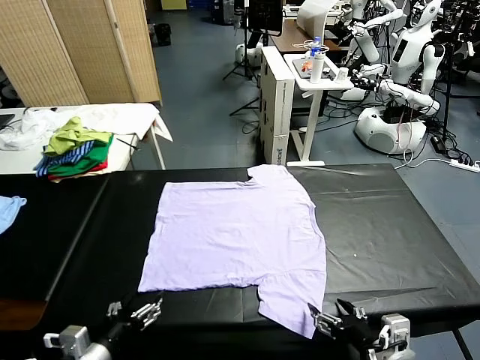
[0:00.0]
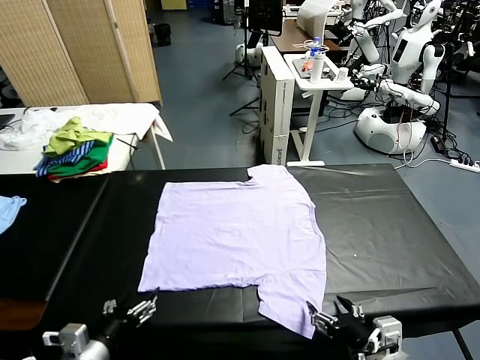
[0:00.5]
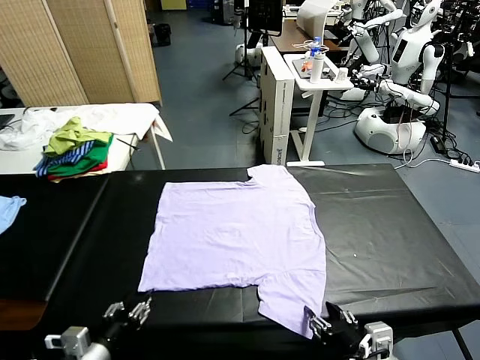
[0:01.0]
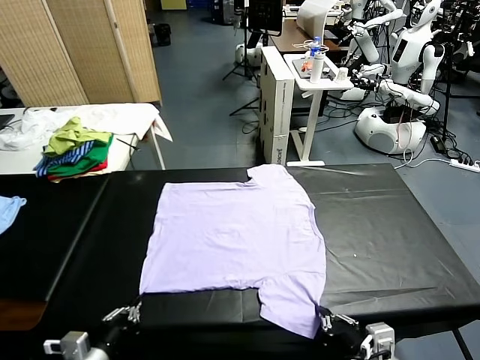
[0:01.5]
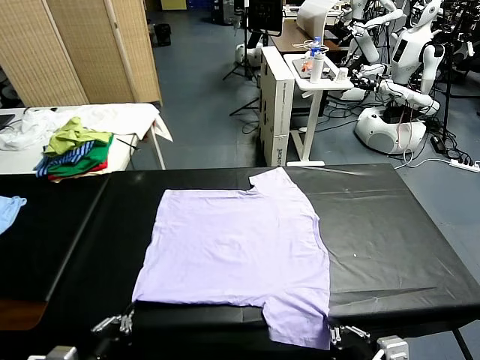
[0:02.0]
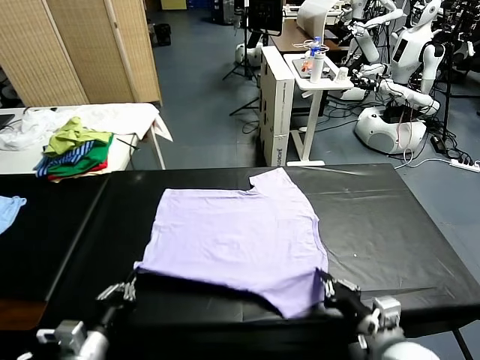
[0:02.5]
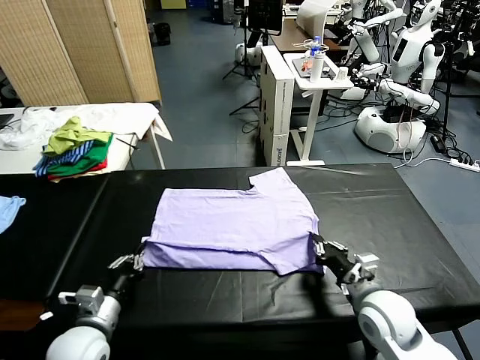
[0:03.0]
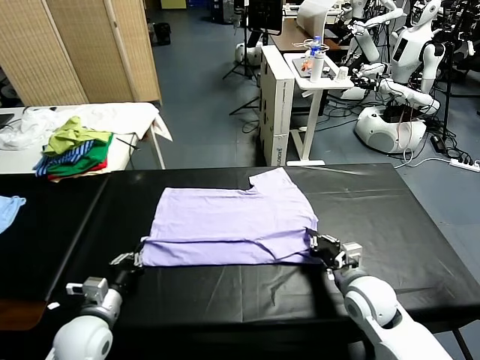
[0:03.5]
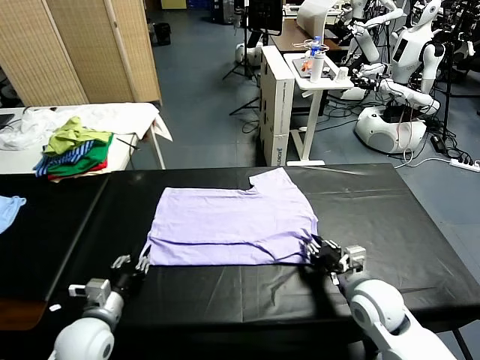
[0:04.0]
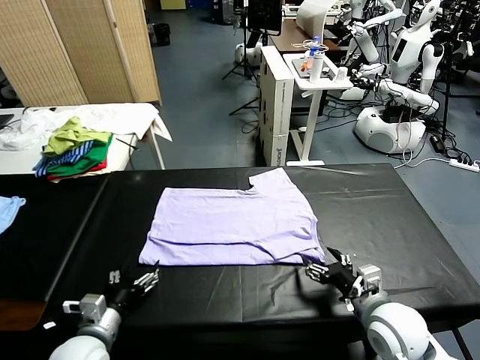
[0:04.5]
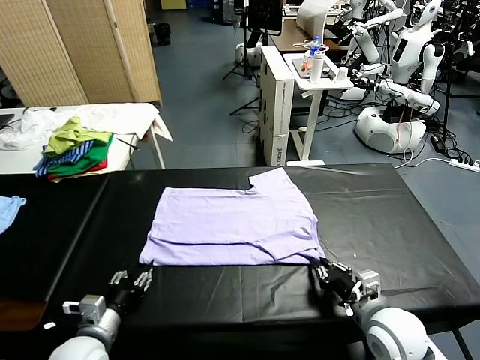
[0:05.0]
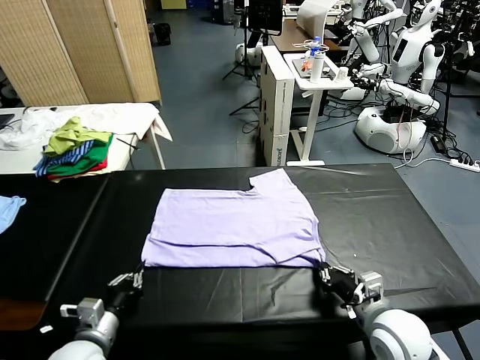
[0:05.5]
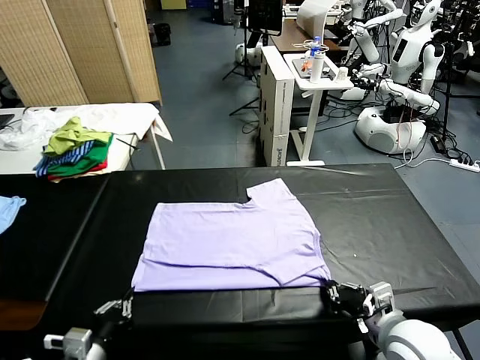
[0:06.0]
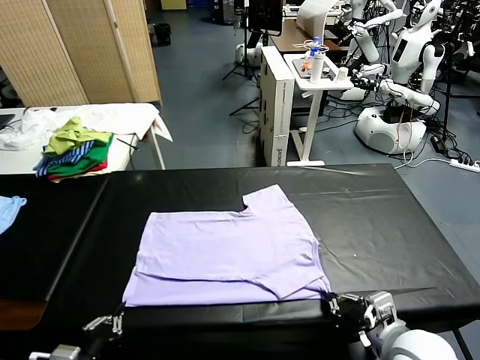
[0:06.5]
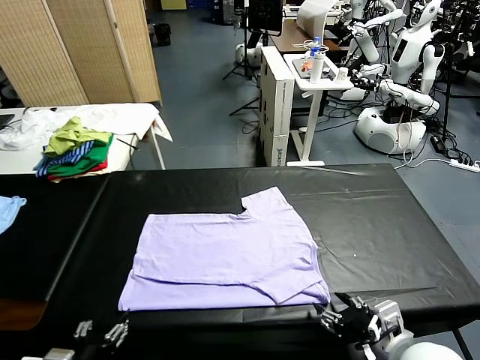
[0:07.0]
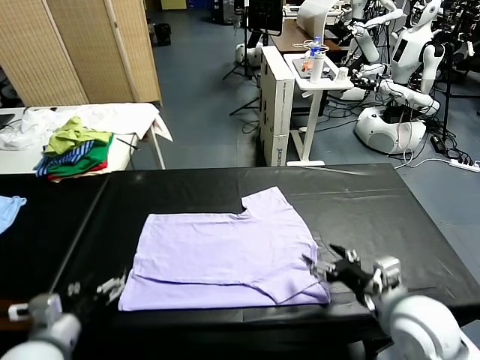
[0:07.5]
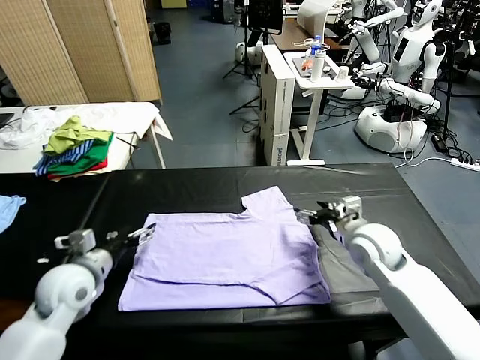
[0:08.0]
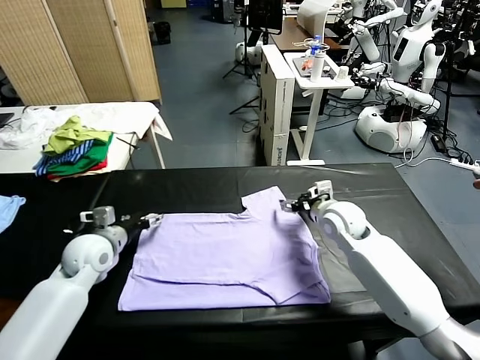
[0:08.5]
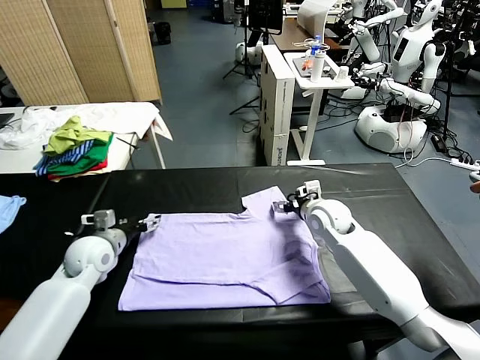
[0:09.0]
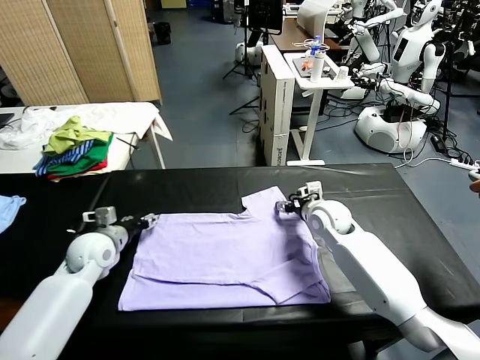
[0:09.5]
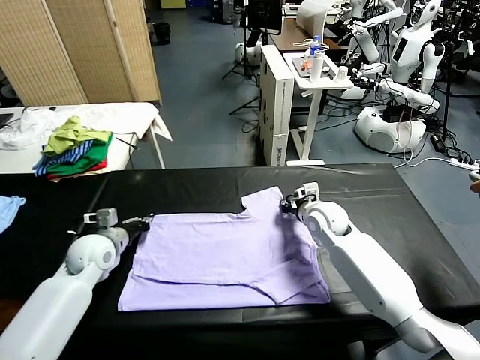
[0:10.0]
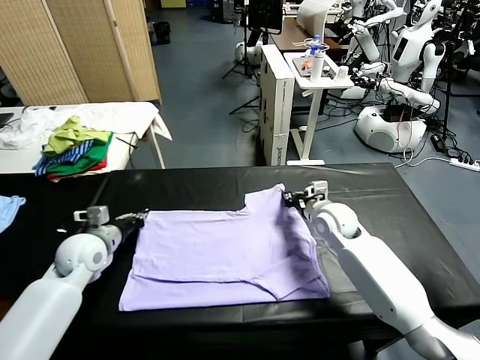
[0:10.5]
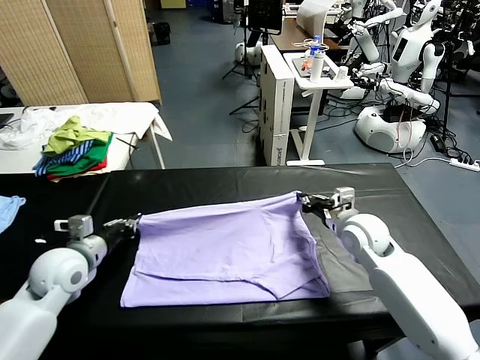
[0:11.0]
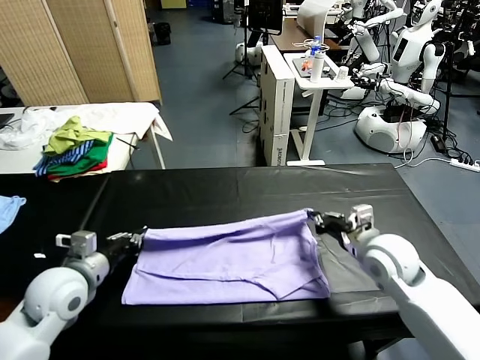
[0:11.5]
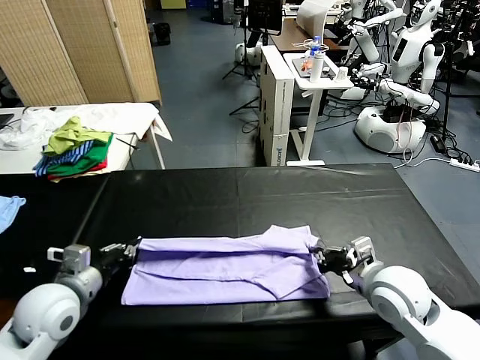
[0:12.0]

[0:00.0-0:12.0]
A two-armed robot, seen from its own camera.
Task of the whole recording: fold and organize the clothes.
Step, 0.0 to 1.5 s: use both grippers simultaneously to clamp the lower edge of the clothing fabric.
Step, 2.0 to 4.0 s: use both grippers to drag the lower edge of the fabric forward and fold it over the upper edge.
Step, 4.5 to 7.0 s: Drag the clothes downward with both gripper.
Step, 7.5 to 10.0 s: use both grippers simultaneously to clamp the upper edge of the clothing fabric.
2.0 to 4.0 s: The grippers both shift forward by about 10 cm. The right gripper opens; the left gripper opens up.
4.0 to 6.0 s: The left gripper travels backward by some 10 cm, and closes, while the right gripper shifts some 5 cm backward, and closes up.
6.0 to 8.0 s: The grippers both shift forward by about 25 cm. The left gripper opens its fingers. The right gripper opens up.
8.0 to 10.0 s: The right gripper shifts by some 5 cm, and closes. Meanwhile the left gripper is displaced forward by about 10 cm, and closes.
10.0 to 12.0 s: The left gripper heads backward and upward, covering roughly 15 cm. The right gripper shifts approximately 20 cm backward.

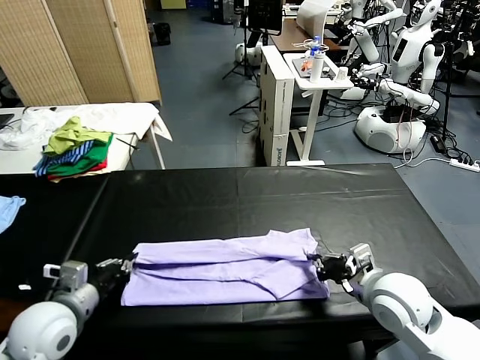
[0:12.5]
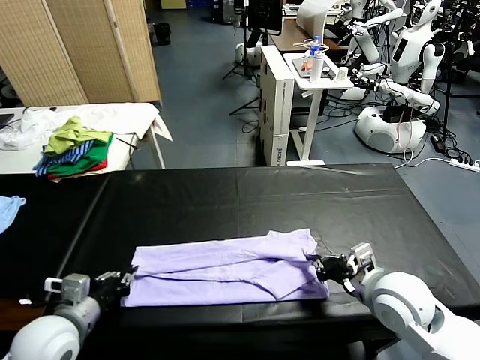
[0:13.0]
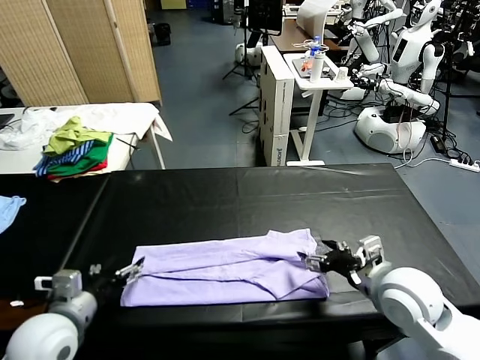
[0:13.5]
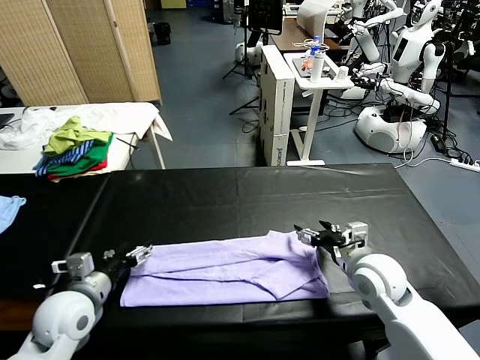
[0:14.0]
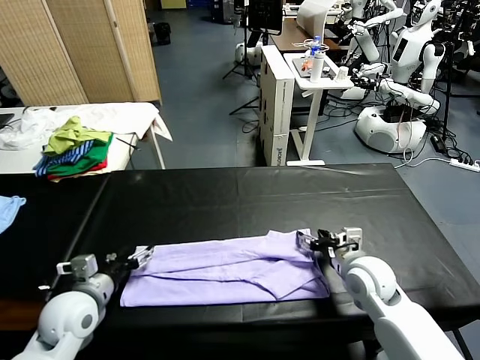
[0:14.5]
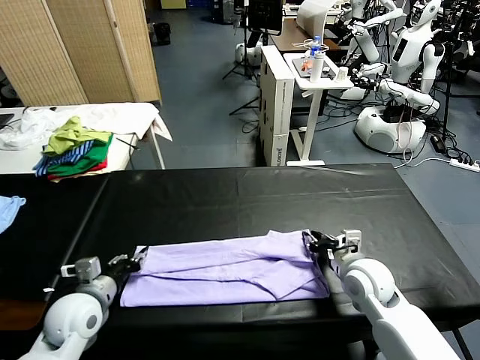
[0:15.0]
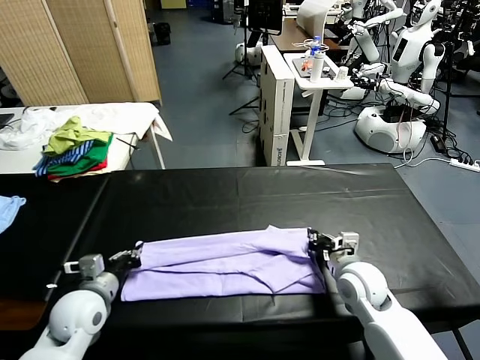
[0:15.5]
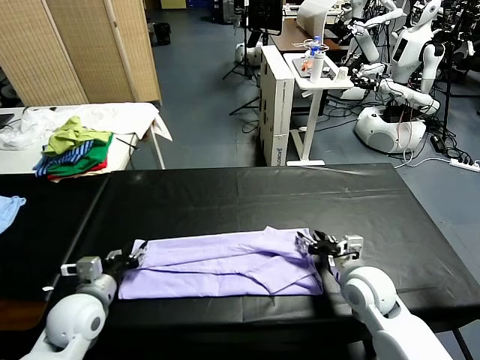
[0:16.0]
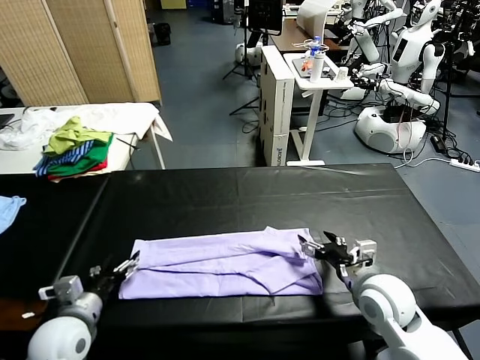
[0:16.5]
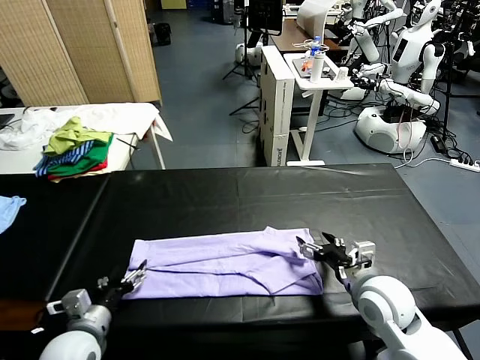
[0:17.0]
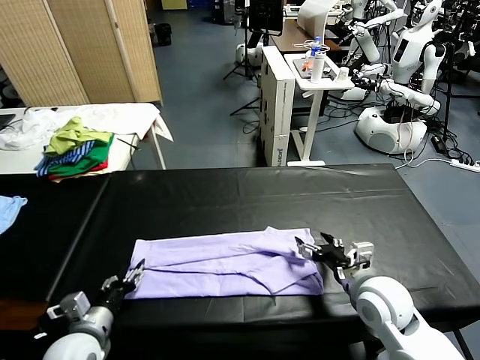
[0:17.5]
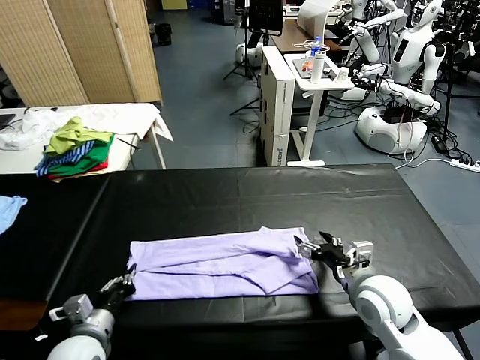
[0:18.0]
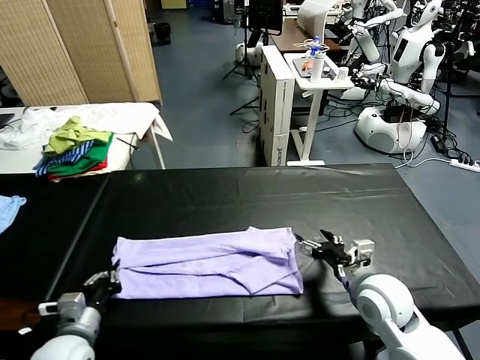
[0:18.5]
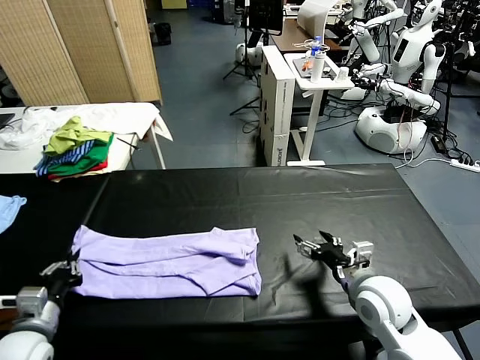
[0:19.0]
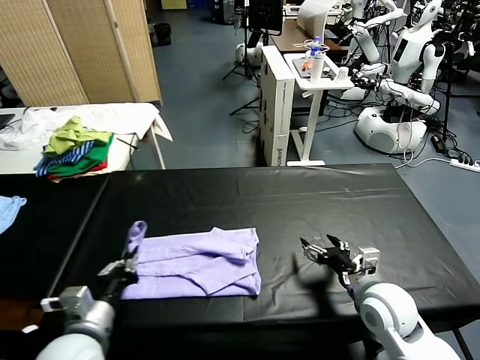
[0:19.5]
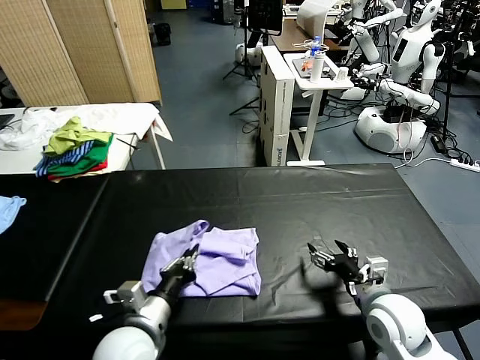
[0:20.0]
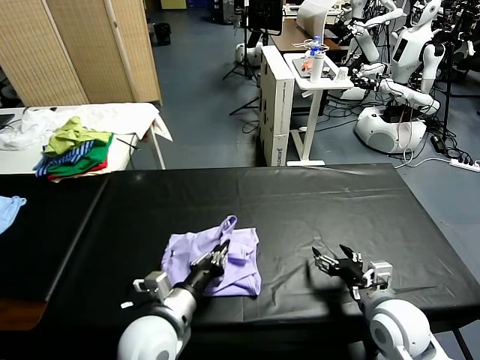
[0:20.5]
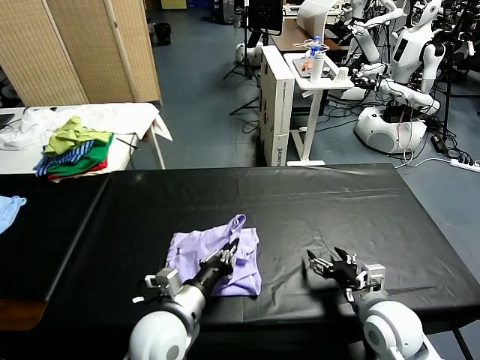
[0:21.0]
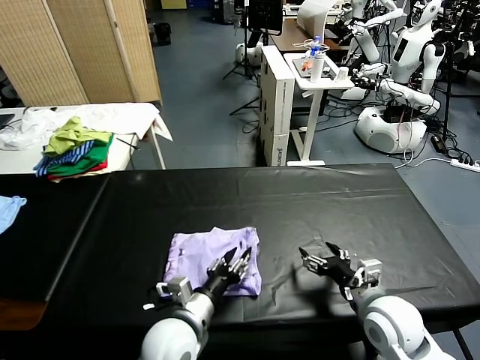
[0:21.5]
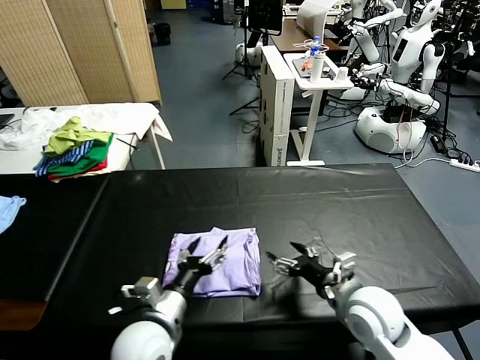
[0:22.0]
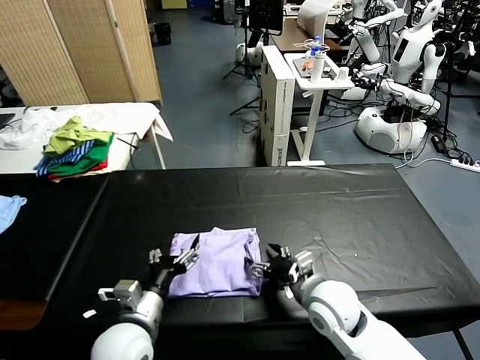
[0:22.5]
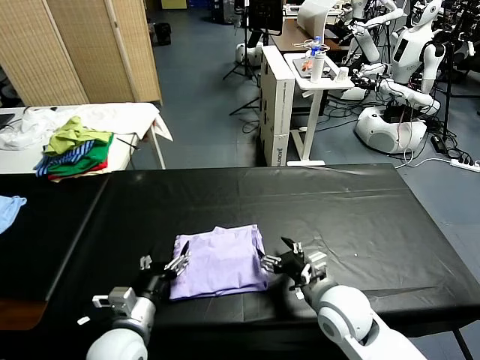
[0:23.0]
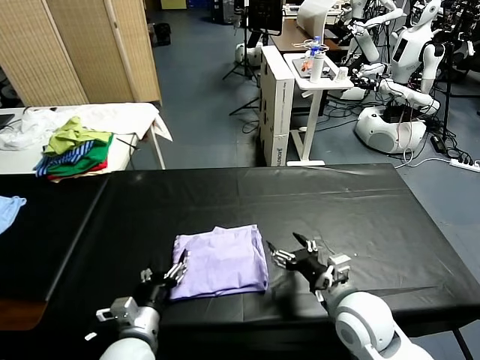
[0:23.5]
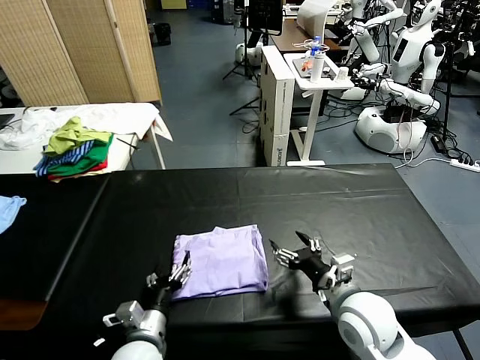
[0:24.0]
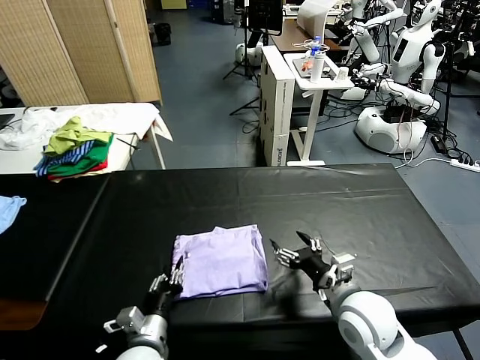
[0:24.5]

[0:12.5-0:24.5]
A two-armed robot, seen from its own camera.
Task of the whole recording: fold and organize the clothes.
Step, 13.5 to 18.0 s: use the left gripper to clamp the left edge of the fabric.
Step, 18.5 to 21.5 s: use the left gripper to drag the left edge of the fabric to the left and folds it over the right edge.
12.5 to 14.5 s: The right gripper travels forward and downward by some 10 cm, and opens; the left gripper moves some 5 cm, and opens its fingers.
14.5 to 16.5 s: The left gripper closes, then opens again. The right gripper is displaced backward by approximately 5 cm, and closes and opens again.
16.5 to 18.5 s: The left gripper closes its fingers.
18.5 to 20.5 s: The right gripper ends up some 5 cm from where it was, while the left gripper heads to the right, covering about 15 cm.
20.5 to 22.5 s: The right gripper heads to the left, covering some 10 cm; the left gripper shifts by some 5 cm, and opens.
22.5 to 24.5 s: The left gripper moves downward, about 10 cm, and closes its fingers. The right gripper ends up approximately 5 cm from where it was.

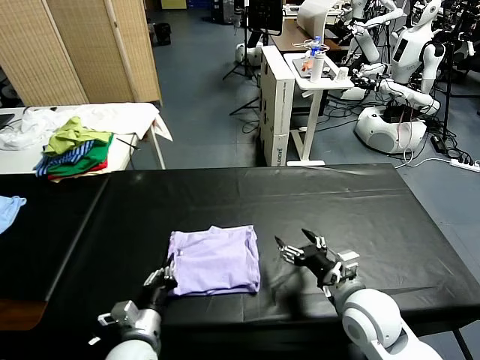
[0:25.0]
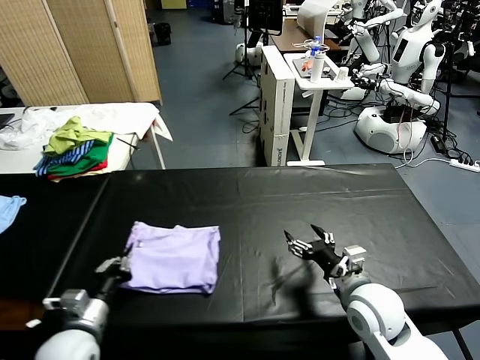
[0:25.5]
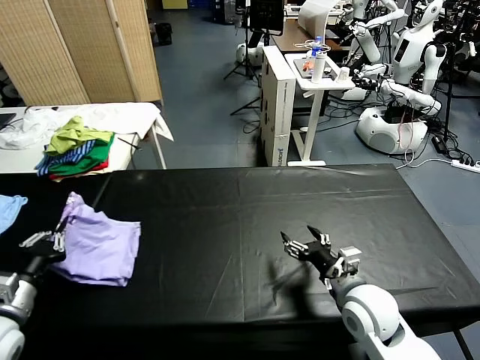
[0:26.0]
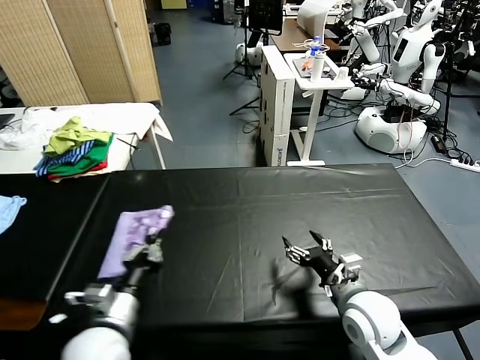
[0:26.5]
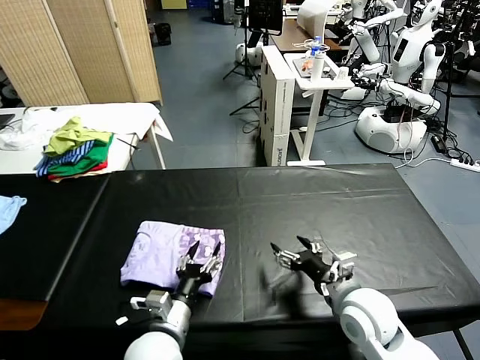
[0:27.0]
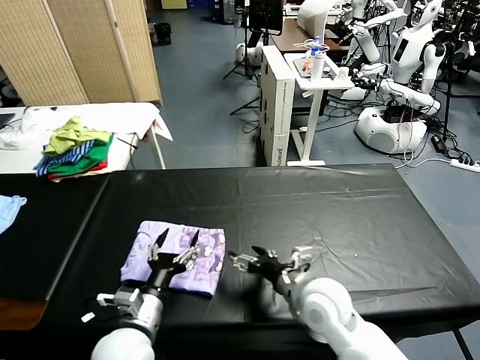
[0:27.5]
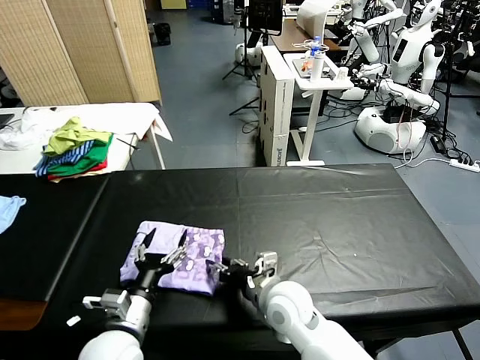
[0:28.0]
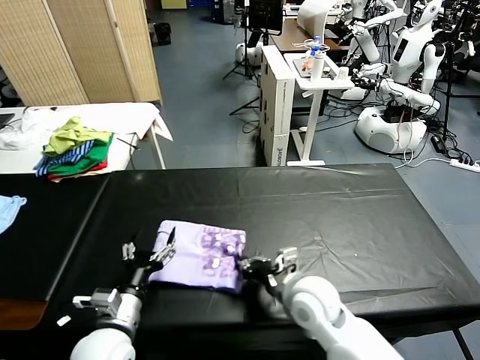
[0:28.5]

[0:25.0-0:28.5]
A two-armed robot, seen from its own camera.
Task of the whole recording: fold and organize the clothes.
Step, 25.0 to 27.0 s: Flip the folded clothes over with left gripper.
25.0 to 27.0 s: The left gripper travels to the left and back again, some 20 cm each way, and opens up.
27.0 to 28.5 s: The grippers both shift to the left by about 10 cm. The right gripper closes its fingers. Meanwhile the left gripper opens up.
